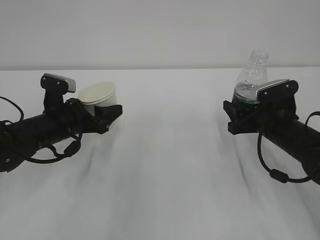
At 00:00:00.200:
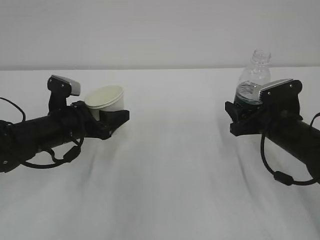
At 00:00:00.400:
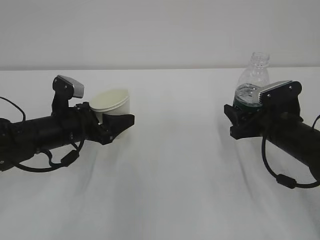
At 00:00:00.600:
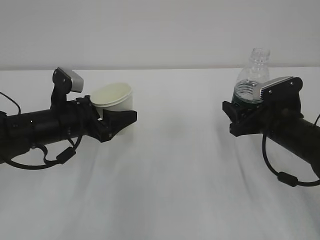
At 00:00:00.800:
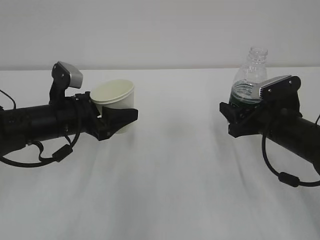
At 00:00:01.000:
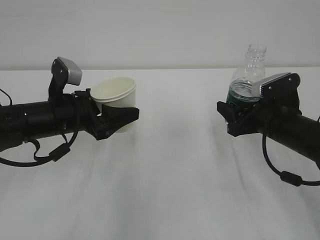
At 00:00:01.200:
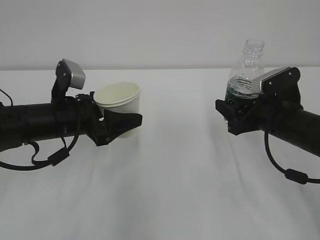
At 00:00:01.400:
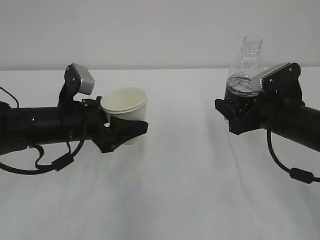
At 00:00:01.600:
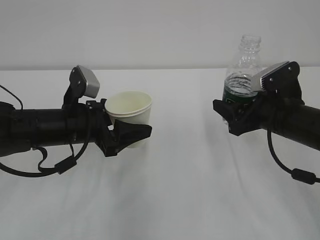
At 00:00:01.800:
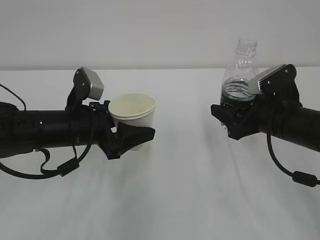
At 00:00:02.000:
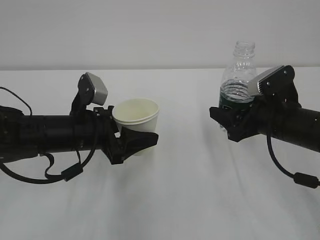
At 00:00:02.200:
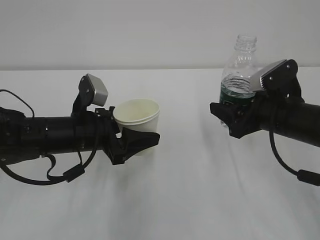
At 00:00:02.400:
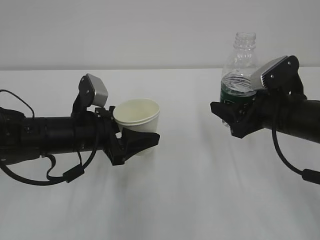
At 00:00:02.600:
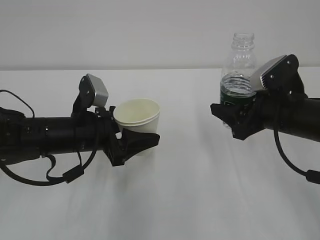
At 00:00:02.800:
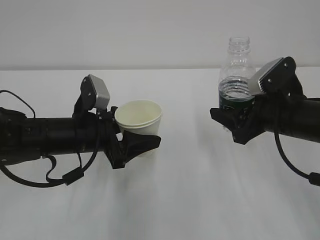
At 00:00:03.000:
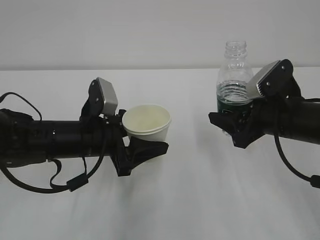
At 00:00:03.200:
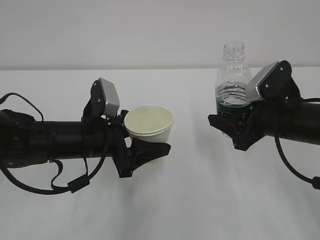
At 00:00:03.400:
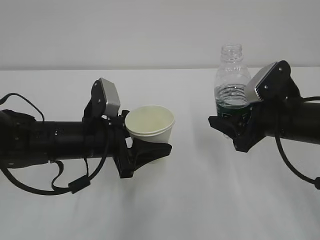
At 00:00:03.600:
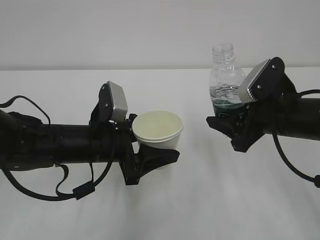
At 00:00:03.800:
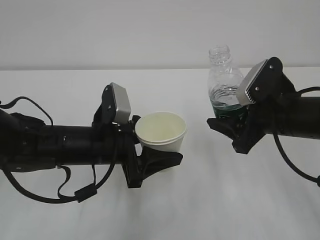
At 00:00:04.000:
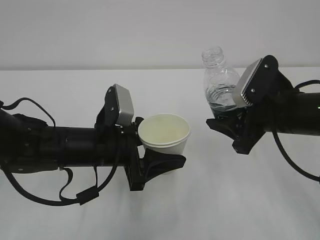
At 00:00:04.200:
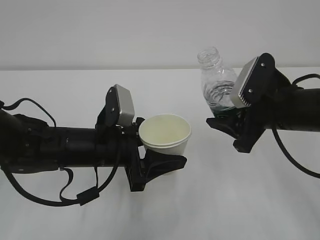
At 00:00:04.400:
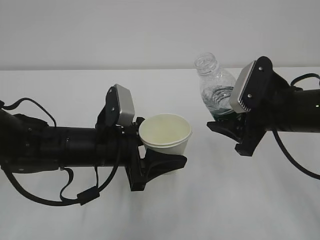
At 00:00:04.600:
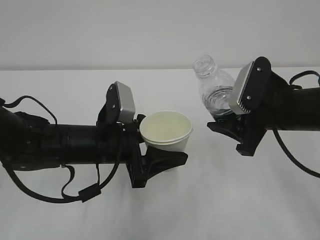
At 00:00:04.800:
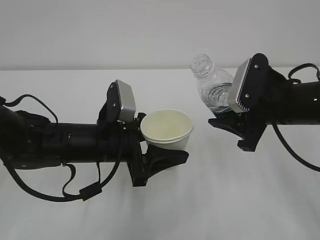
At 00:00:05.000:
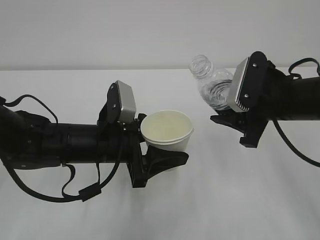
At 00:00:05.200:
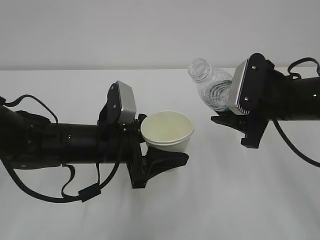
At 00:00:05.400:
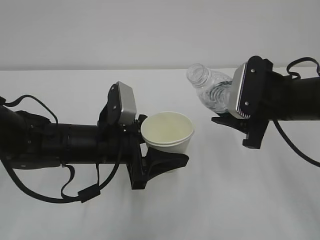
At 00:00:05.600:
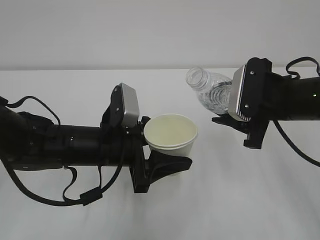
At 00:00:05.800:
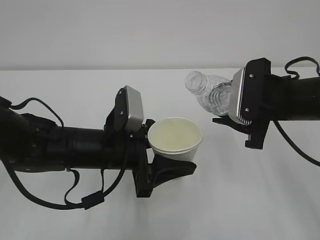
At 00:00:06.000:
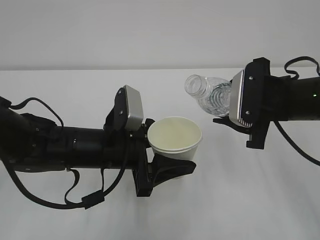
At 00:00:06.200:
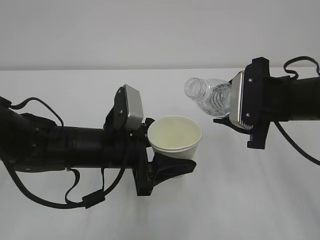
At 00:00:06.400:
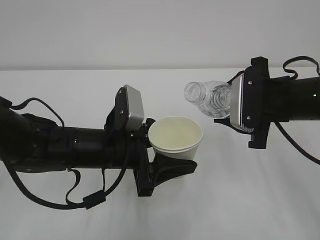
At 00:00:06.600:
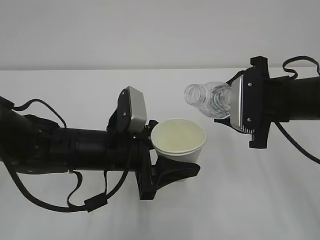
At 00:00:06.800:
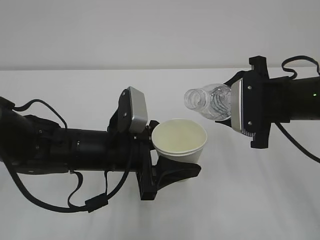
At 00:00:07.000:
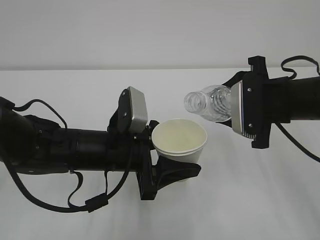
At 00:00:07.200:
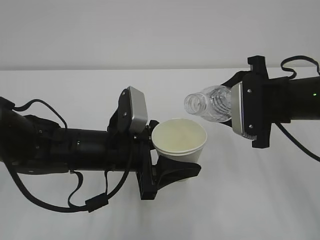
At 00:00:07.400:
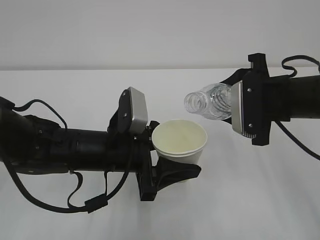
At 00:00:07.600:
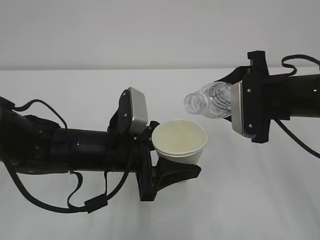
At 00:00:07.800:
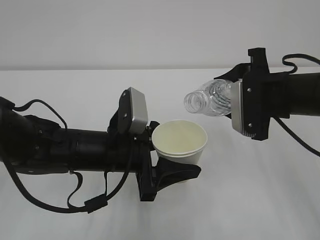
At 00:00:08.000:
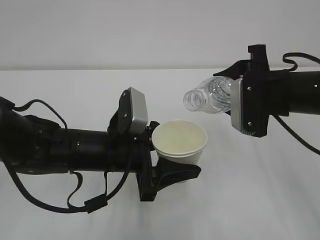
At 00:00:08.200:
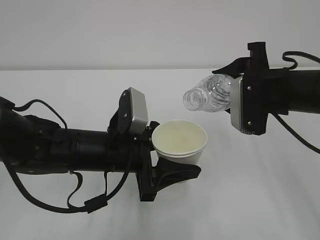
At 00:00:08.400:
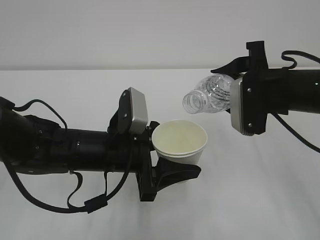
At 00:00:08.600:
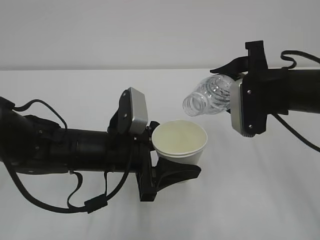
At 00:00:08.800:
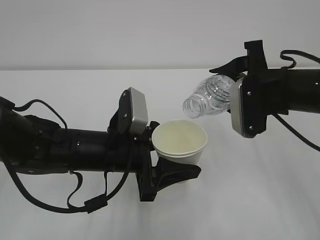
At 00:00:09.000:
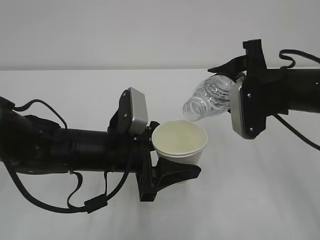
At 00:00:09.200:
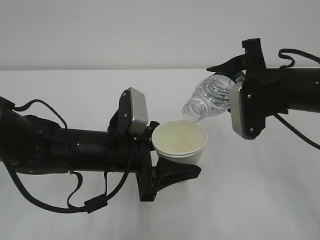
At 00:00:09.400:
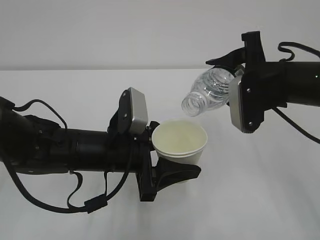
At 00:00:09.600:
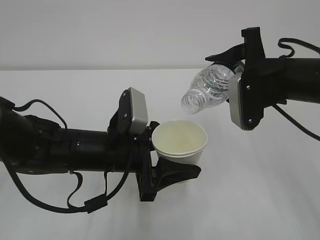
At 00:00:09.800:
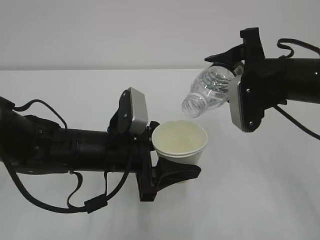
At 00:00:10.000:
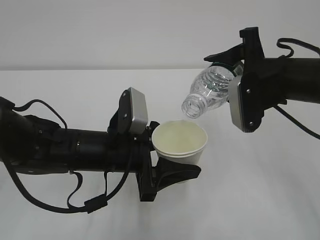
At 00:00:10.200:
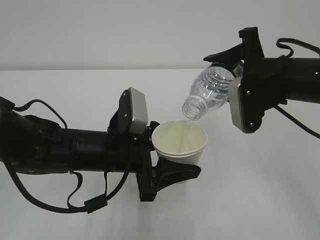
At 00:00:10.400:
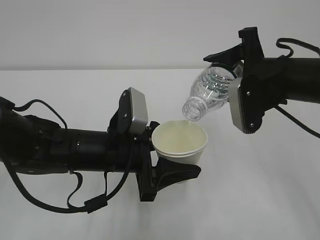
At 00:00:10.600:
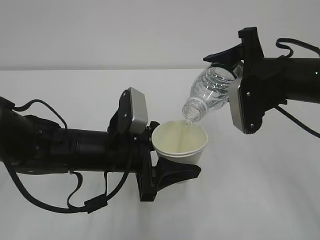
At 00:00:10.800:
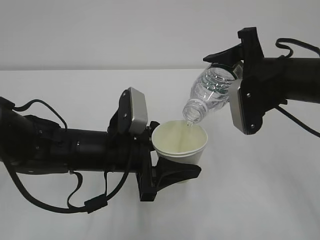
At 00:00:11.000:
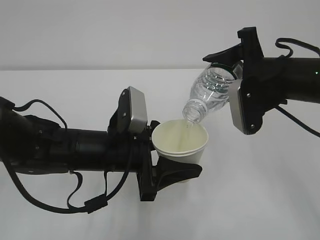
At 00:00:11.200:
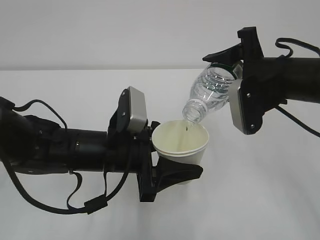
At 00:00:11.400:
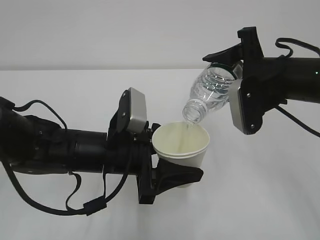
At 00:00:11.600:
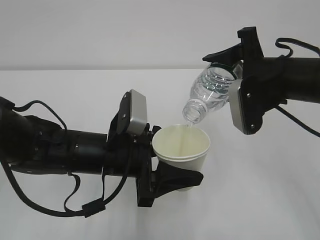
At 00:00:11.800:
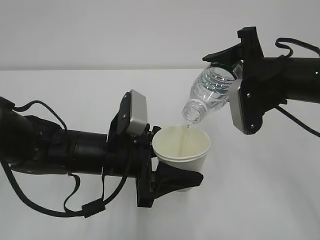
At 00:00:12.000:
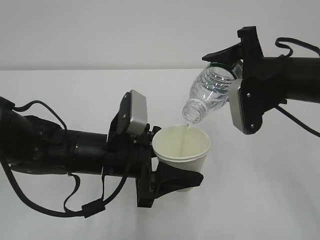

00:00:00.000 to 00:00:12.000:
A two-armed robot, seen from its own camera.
00:00:00.000 to 00:00:01.600: The right gripper shifts roughly 5 cm upward. Meanwhile the left gripper changes place by some 5 cm.
00:00:01.600 to 00:00:03.000: The grippers move only a little.
00:00:06.000 to 00:00:07.600: The grippers move only a little.
00:00:07.600 to 00:00:09.000: There are only small adjustments of the grippers.
00:00:09.000 to 00:00:12.000: The grippers stay close to where they were, moving slightly.

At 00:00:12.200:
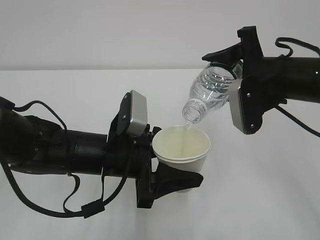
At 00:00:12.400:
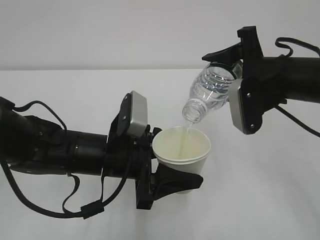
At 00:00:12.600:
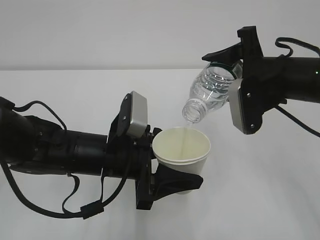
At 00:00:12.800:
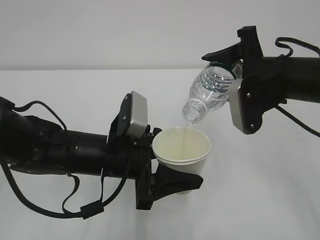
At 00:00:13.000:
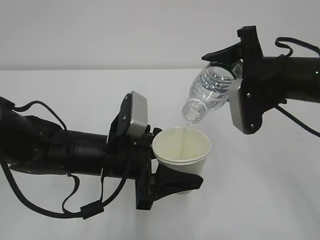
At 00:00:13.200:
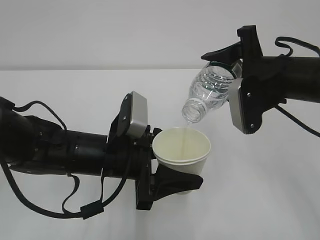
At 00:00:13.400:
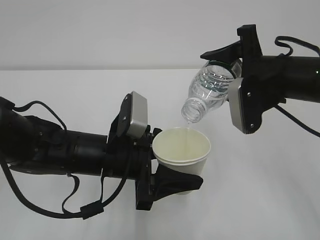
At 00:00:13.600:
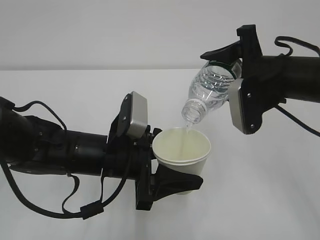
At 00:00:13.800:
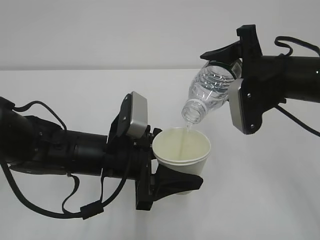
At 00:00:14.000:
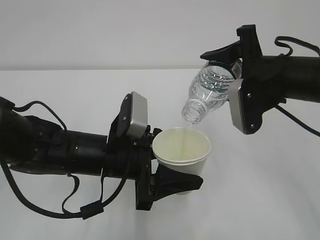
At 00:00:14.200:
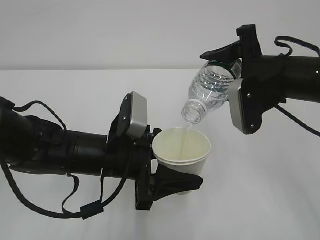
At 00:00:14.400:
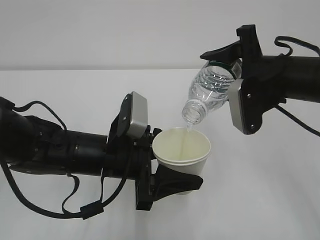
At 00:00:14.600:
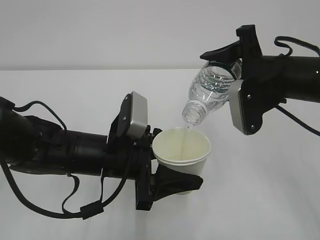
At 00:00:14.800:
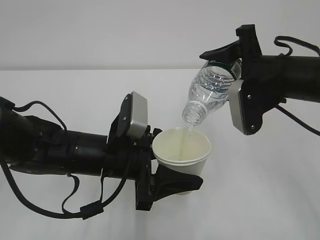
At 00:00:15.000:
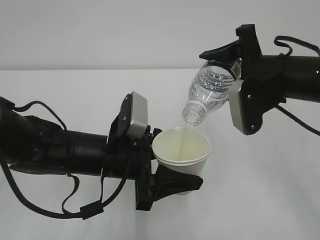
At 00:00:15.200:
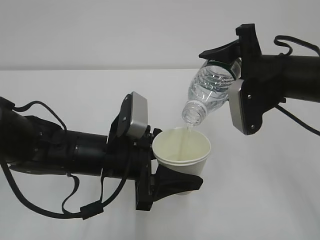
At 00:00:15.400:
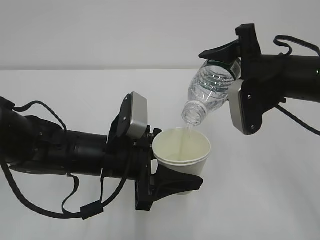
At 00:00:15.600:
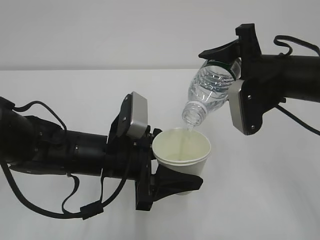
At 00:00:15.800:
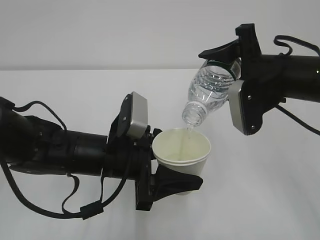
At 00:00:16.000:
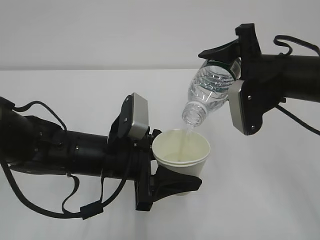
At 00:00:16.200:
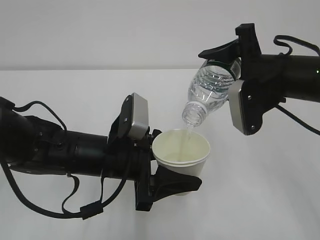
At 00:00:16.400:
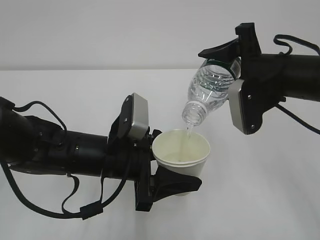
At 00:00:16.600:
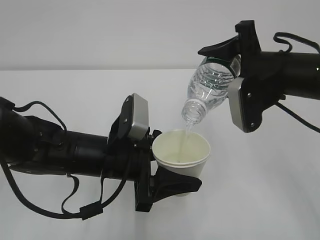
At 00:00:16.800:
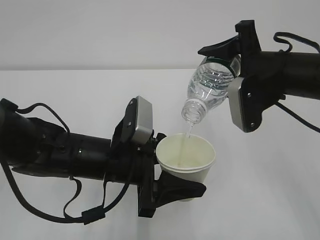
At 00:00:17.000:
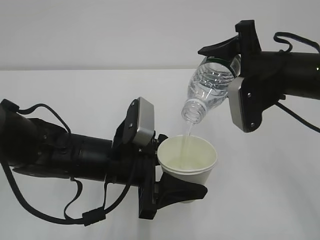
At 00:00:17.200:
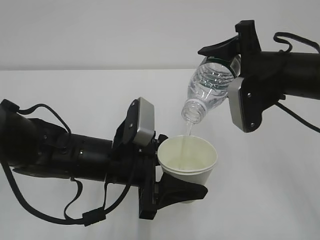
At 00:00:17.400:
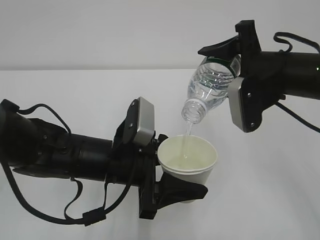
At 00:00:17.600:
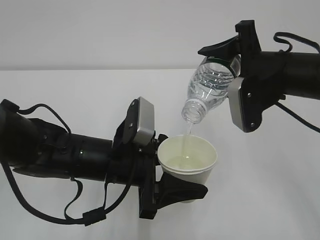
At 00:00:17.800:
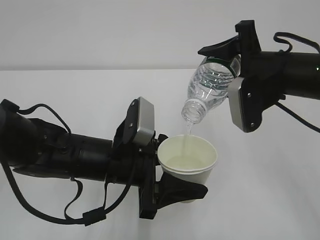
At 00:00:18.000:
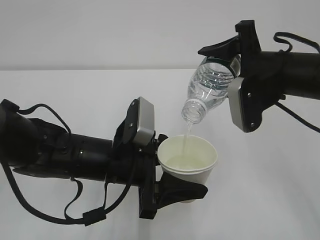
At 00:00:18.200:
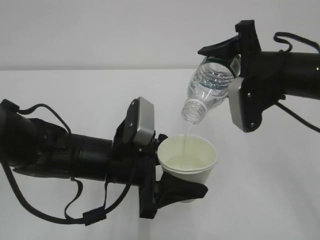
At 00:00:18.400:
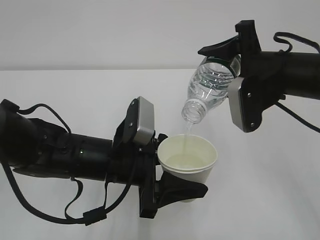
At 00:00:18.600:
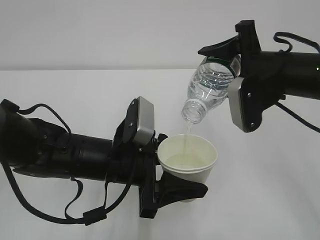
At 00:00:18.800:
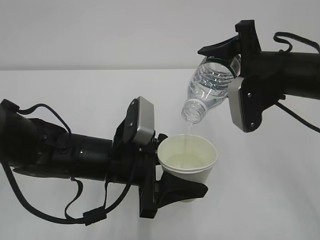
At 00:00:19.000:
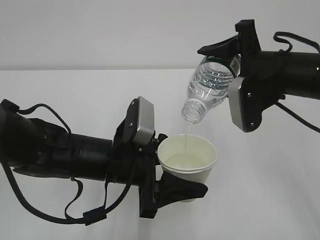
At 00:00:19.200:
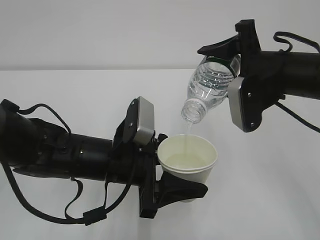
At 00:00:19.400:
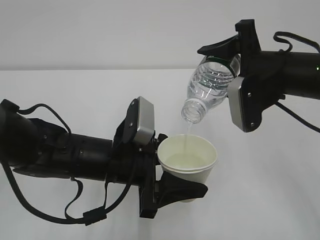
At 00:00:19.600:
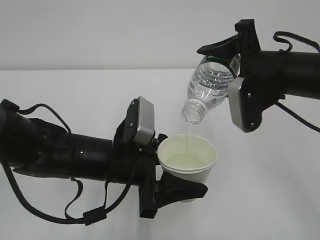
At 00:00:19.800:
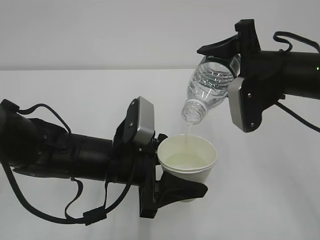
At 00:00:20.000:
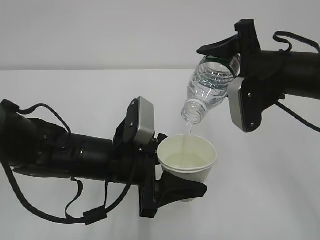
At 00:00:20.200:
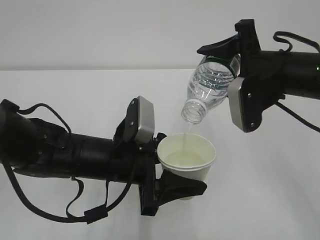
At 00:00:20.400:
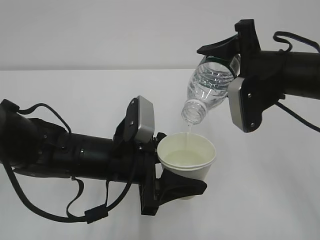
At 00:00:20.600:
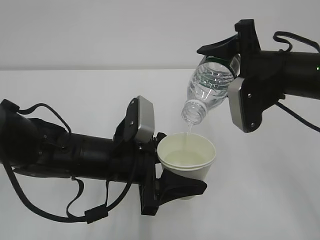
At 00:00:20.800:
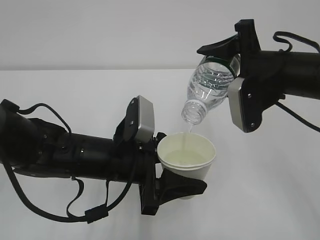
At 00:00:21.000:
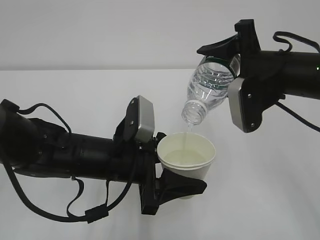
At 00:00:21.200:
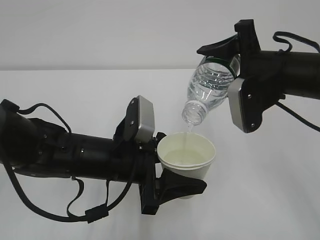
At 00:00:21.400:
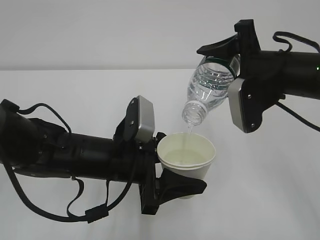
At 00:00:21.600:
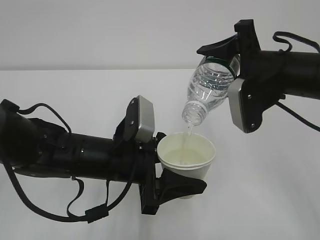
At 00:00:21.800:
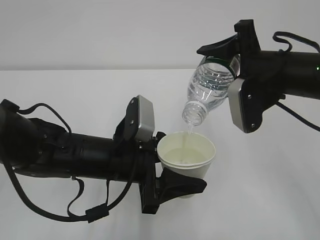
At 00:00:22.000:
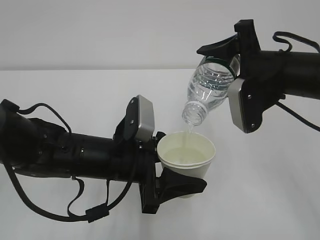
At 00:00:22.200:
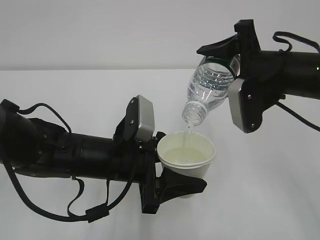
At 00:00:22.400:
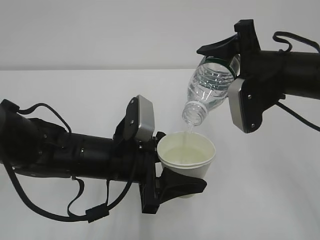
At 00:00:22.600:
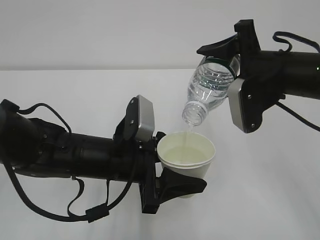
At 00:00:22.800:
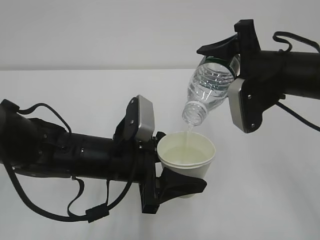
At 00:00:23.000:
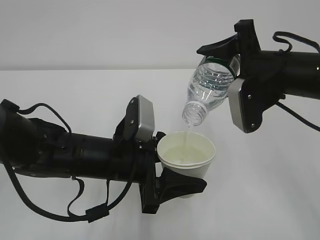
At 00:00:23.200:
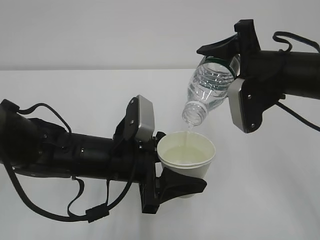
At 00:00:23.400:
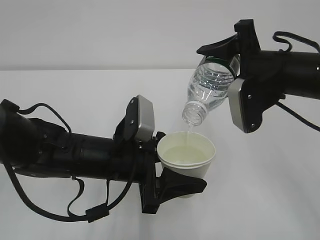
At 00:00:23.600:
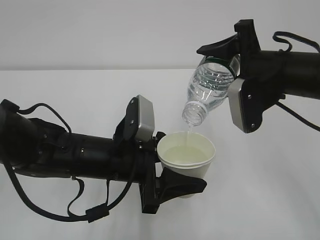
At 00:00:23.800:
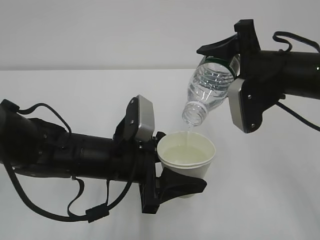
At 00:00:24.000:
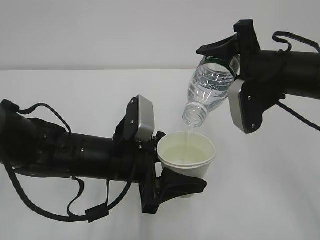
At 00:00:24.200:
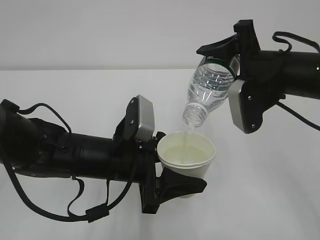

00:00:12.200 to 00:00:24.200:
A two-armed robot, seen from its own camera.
00:00:12.200 to 00:00:15.200: Neither gripper changes place.
00:00:15.200 to 00:00:22.600: Neither gripper changes place.
00:00:22.600 to 00:00:24.200: The two grippers keep their place.
